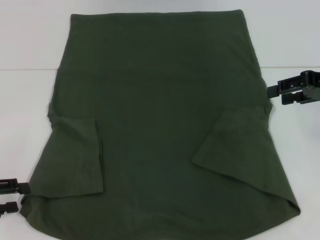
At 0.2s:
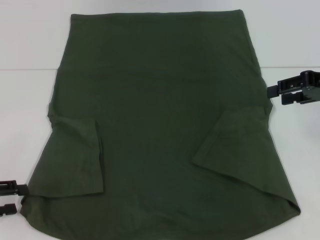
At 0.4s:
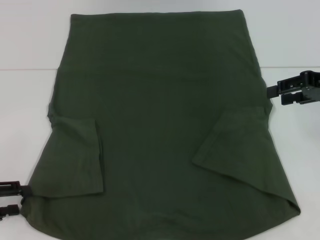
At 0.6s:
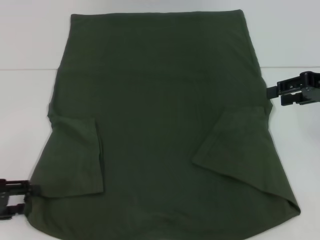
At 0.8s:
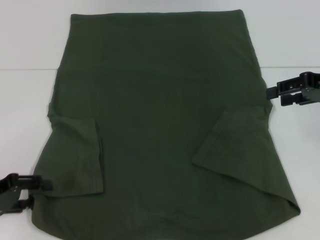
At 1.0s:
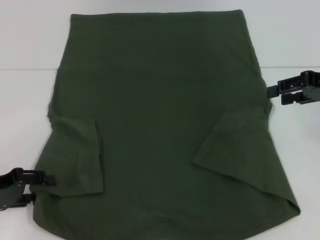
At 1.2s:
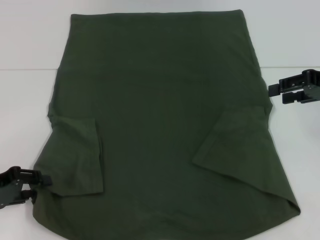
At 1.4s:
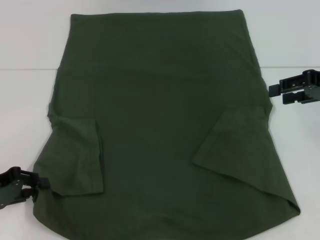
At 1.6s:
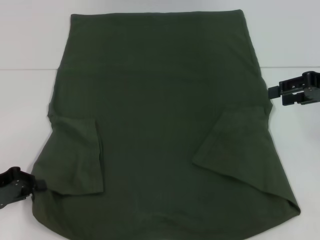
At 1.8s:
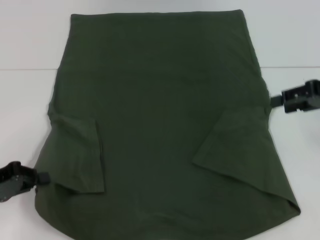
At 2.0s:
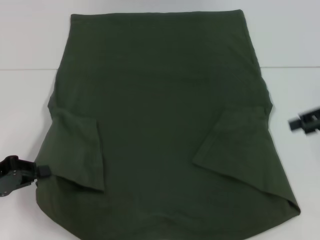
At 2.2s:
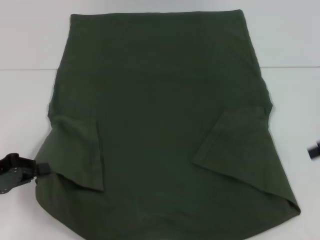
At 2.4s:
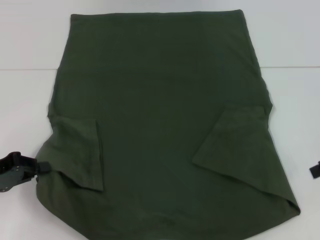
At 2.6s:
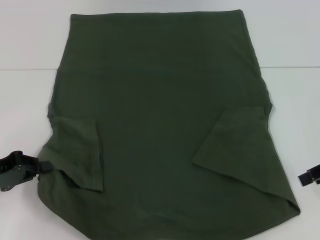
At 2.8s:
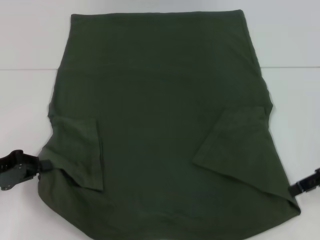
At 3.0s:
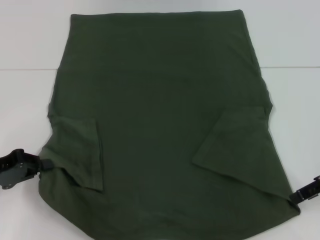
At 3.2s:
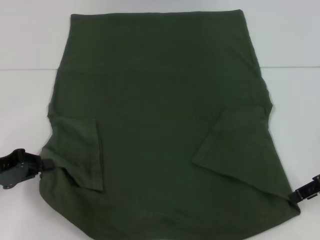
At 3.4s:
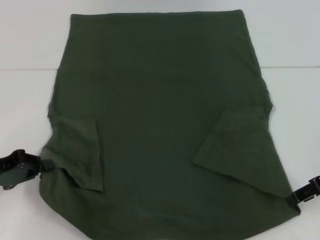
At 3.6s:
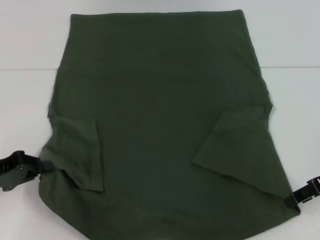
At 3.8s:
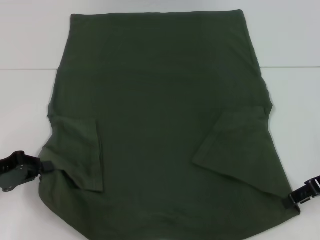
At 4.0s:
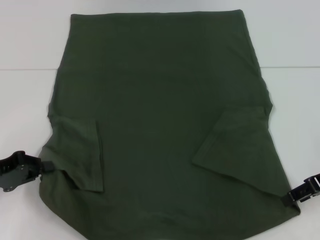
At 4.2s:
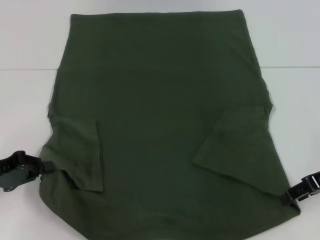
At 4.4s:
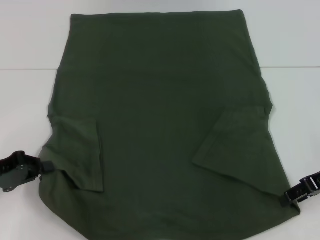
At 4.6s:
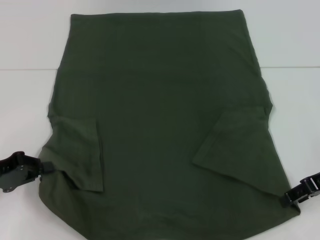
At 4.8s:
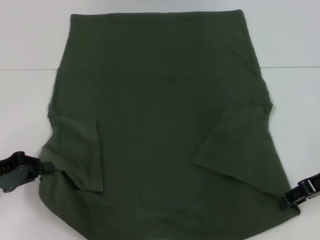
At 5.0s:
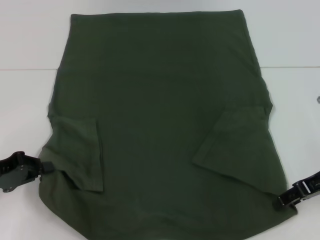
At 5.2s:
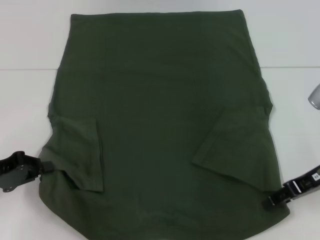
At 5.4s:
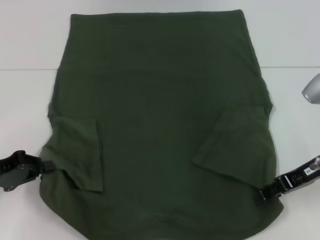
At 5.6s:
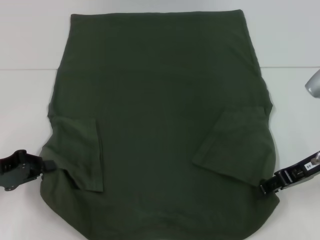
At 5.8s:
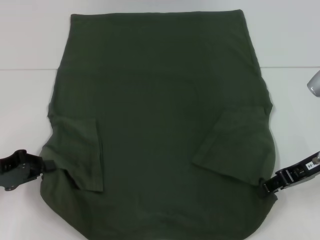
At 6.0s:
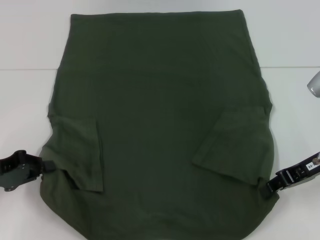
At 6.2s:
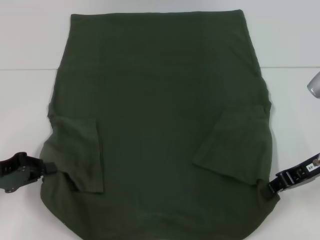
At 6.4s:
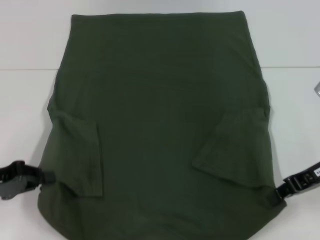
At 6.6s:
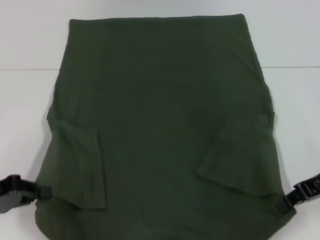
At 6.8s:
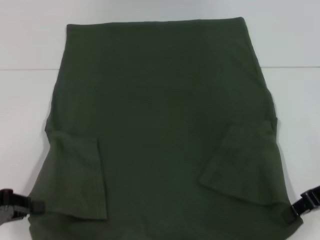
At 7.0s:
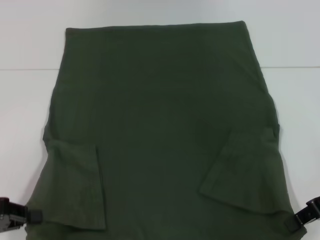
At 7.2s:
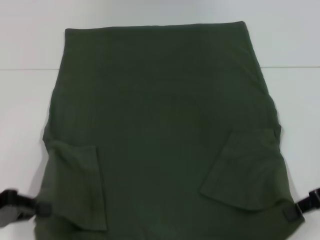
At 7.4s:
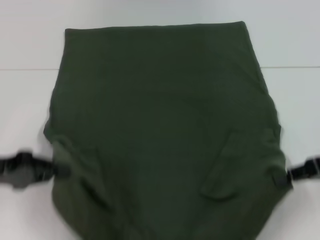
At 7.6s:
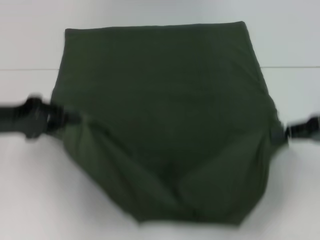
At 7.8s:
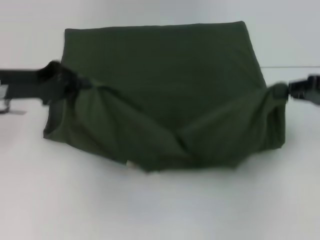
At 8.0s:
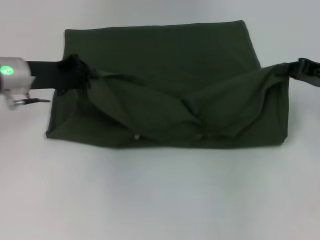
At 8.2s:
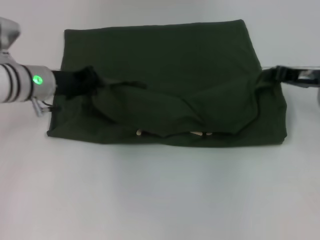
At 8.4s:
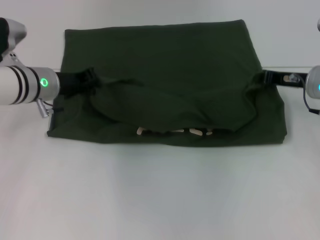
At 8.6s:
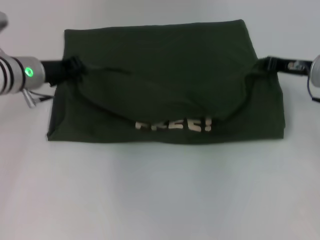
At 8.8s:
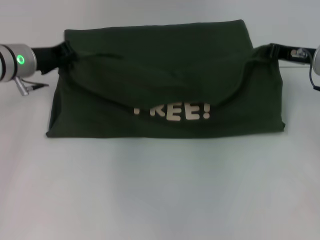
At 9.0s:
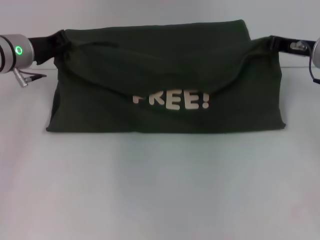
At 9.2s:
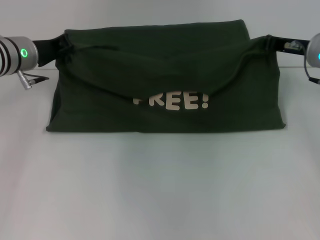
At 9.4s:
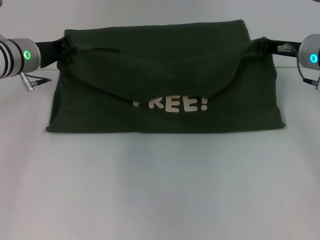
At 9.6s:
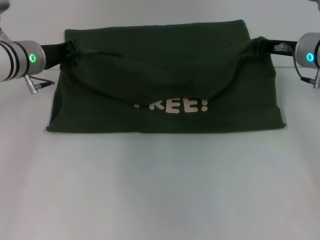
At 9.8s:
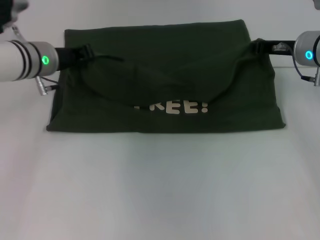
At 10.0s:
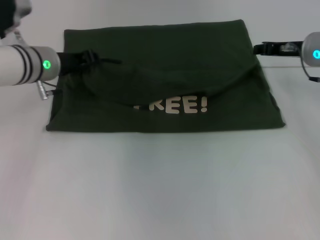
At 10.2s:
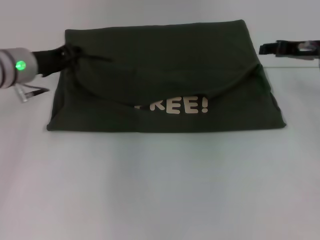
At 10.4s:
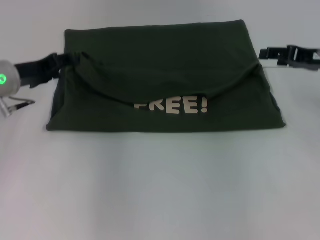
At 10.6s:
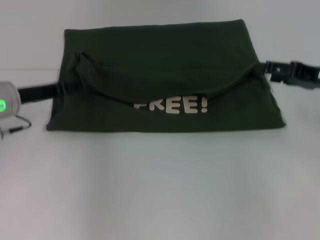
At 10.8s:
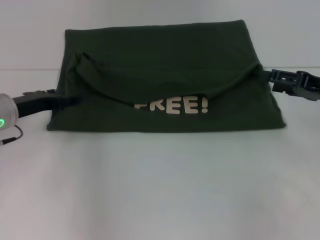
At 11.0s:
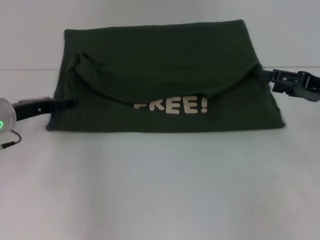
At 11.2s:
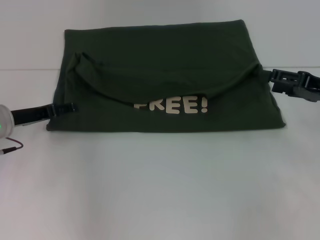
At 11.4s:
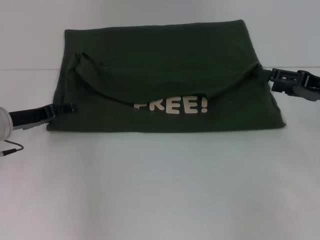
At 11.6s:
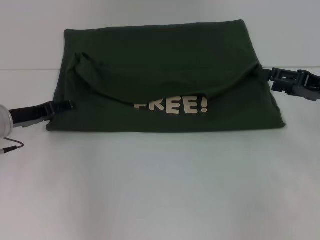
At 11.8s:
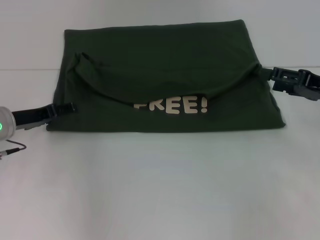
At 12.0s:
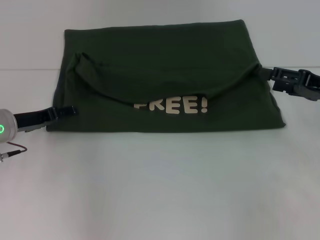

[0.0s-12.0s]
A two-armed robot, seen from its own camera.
Step, 1.8s to 5.2s: Grab the bottom right corner with your right hand.
Step, 5.4s to 10.4s: Fold the clothes with your left hand.
Step, 5.4s to 10.4s: Fold the clothes with your right hand.
0.0s to 1.6s: The left gripper closes up.
1.6s to 3.0s: The right gripper goes roughly 10 cm downward and backward.
3.0s to 6.0s: There are only small adjustments of the grippers.
6.0s to 7.6s: The right gripper goes approximately 5 cm to the right. Meanwhile the left gripper moves upward, some 5 cm.
7.6s to 9.0s: The left gripper goes roughly 15 cm forward and to the right; the right gripper moves forward and to the left, approximately 15 cm.
9.0s to 10.4s: The right gripper opens. The left gripper ends up some 5 cm from where it was, and opens.
10.4s to 12.0s: The left gripper is displaced downward by roughly 5 cm, while the right gripper travels backward by some 5 cm, and opens its fingers.

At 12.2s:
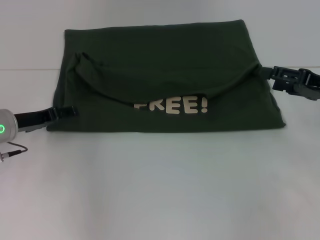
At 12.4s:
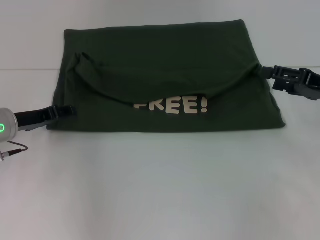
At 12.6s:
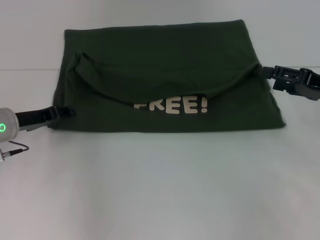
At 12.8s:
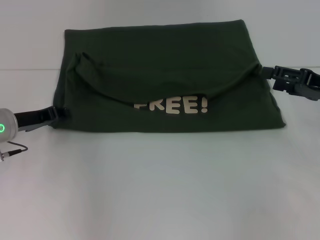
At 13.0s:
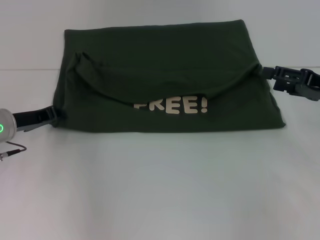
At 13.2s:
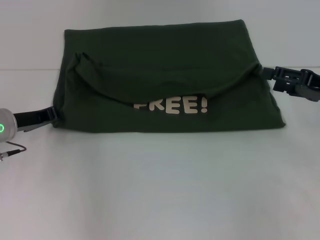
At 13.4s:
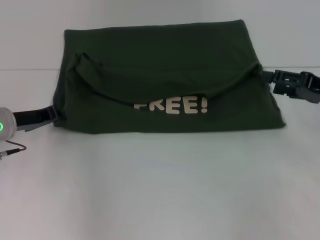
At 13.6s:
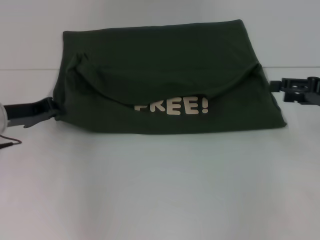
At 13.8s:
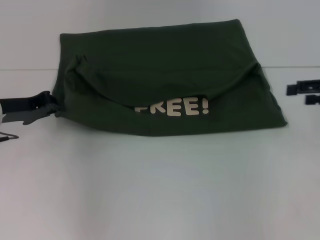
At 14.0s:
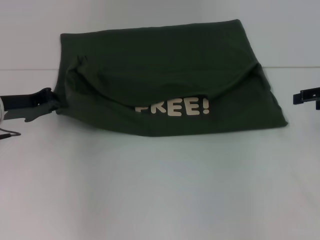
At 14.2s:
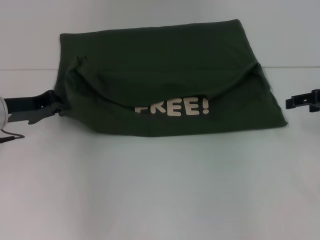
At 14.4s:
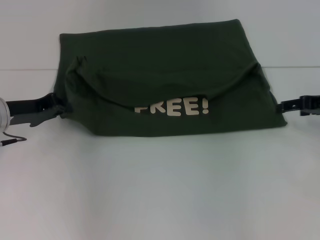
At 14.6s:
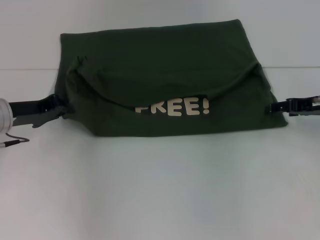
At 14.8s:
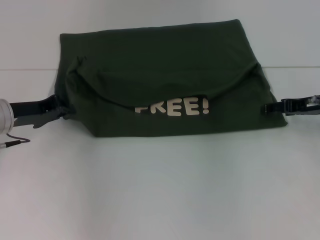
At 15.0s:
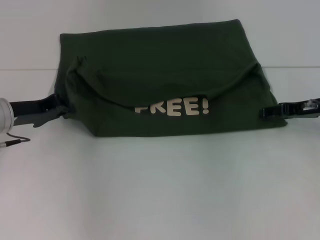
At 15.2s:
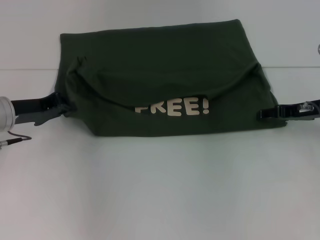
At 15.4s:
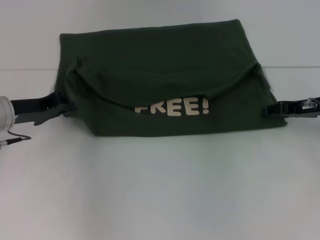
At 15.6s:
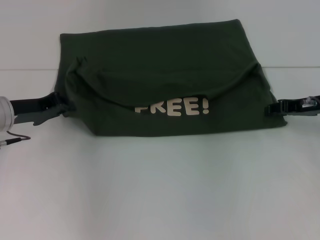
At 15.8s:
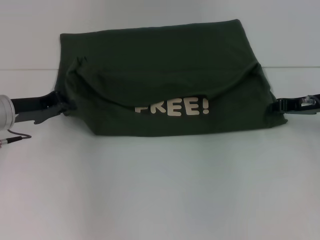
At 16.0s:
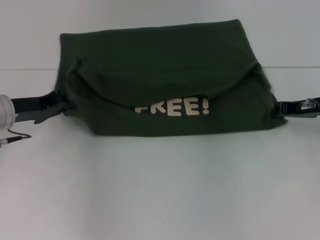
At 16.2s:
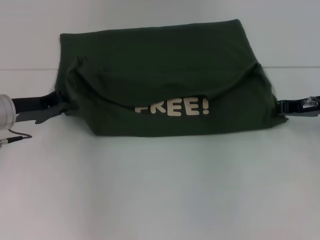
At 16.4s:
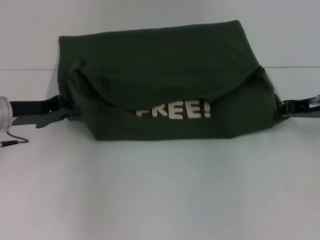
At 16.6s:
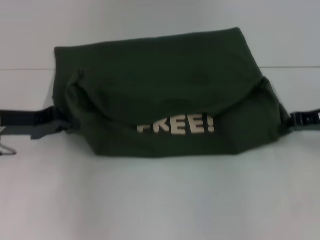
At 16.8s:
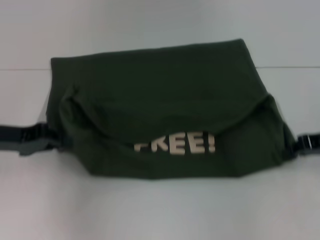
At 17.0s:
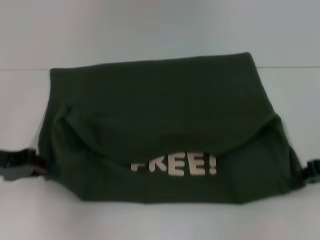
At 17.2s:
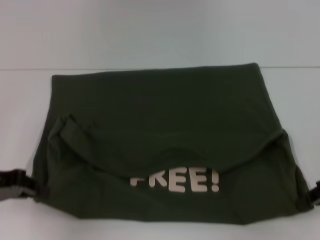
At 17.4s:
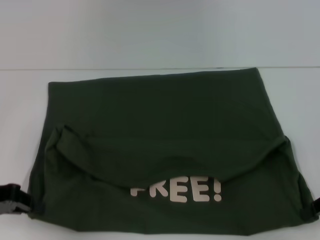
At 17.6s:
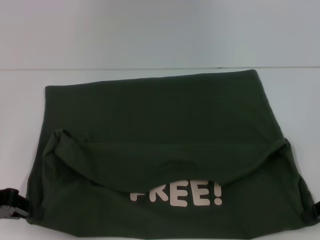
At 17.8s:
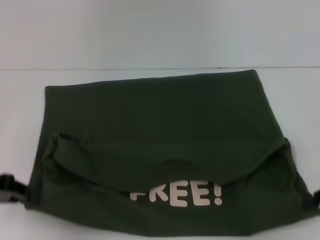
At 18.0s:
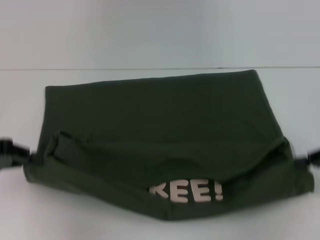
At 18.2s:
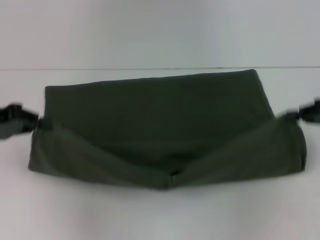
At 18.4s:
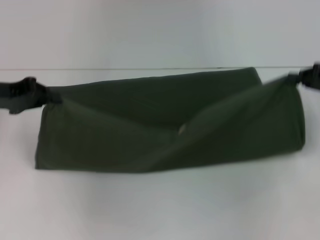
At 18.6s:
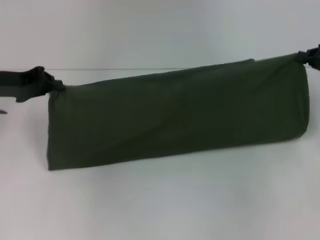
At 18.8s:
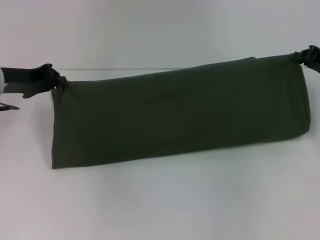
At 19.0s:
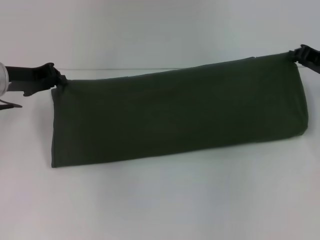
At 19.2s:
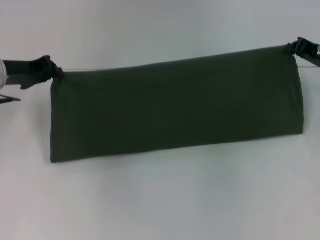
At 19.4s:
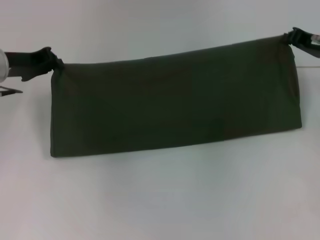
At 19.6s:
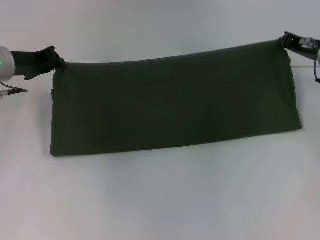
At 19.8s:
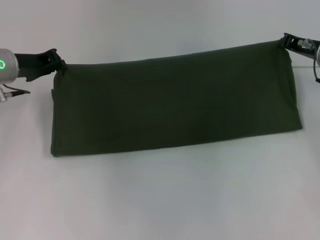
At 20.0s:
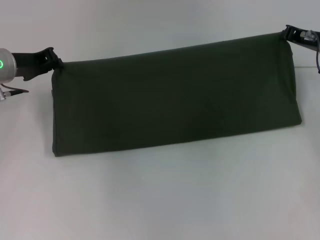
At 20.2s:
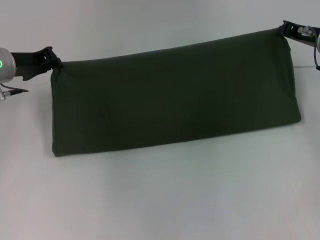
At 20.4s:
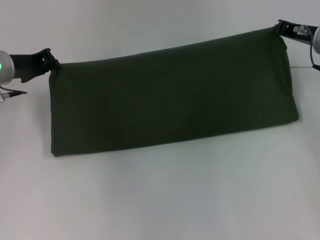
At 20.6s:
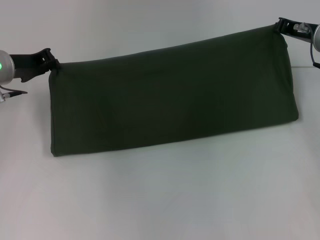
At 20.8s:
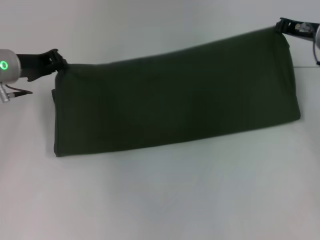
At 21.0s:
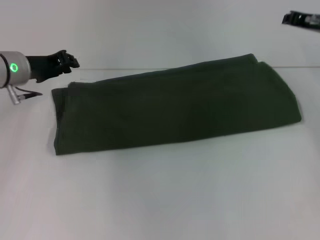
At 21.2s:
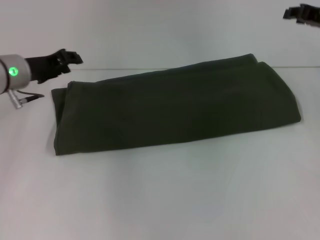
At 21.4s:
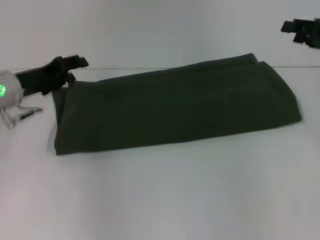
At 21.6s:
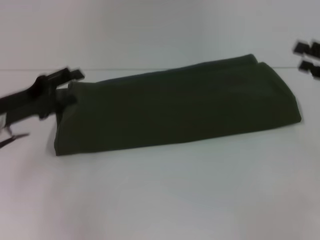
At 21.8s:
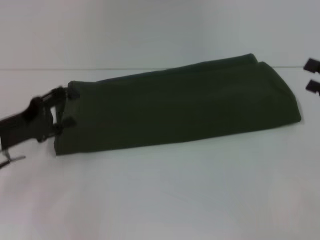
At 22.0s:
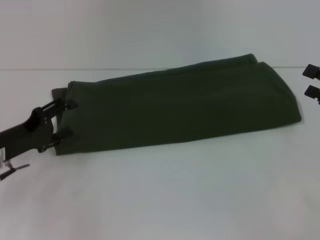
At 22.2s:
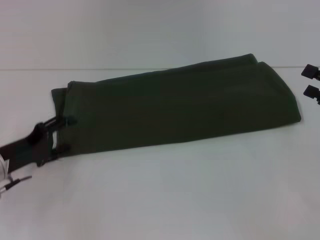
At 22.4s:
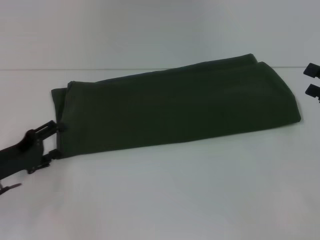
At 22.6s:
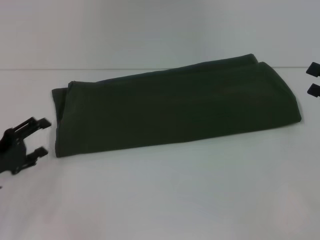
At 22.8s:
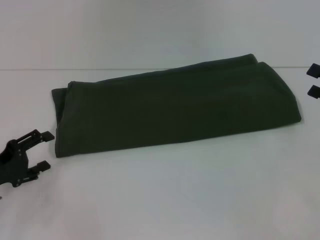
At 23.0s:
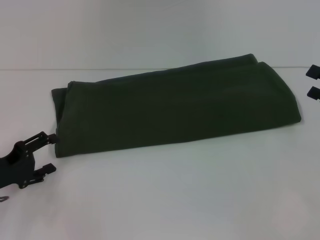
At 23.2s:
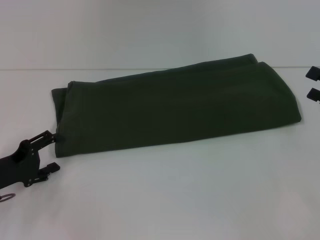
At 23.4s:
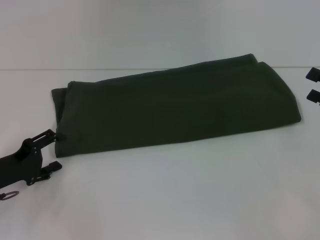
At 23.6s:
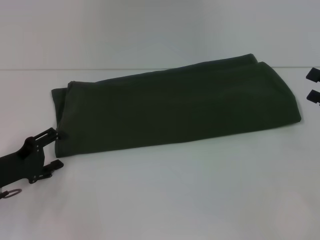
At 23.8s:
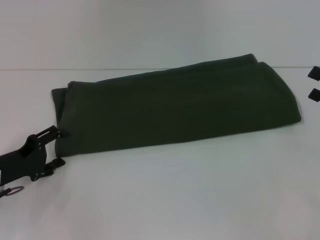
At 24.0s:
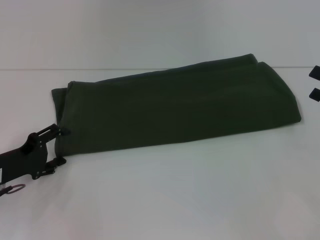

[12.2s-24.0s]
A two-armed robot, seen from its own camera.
Step, 12.2s to 17.4s: Pull the clothes with your left hand.
Step, 12.2s to 17.4s: Pull the clothes with your right hand.
Step, 17.6s to 21.2s: Fold the clothes with your right hand.
12.2s to 13.6s: The left gripper closes its fingers.
13.6s to 15.2s: The right gripper heads to the left, covering about 5 cm.
15.2s to 16.6s: The right gripper closes up.
16.6s to 18.2s: The left gripper moves about 10 cm backward and comes back.
18.2s to 19.6s: The left gripper goes approximately 10 cm forward and to the right. The right gripper travels forward and to the left by roughly 15 cm.
19.6s to 21.0s: The grippers stay close to where they were, moving slightly.
21.0s to 22.6s: The right gripper is displaced backward and to the right by about 20 cm, and opens. Meanwhile the left gripper shifts about 20 cm backward, downward and to the left, and opens.
22.6s to 24.0s: The grippers move only a little.
